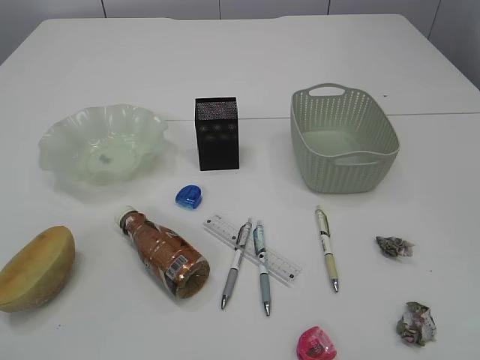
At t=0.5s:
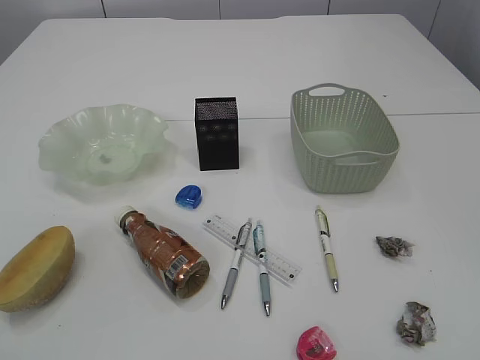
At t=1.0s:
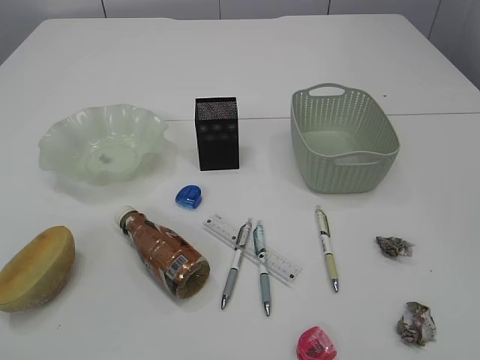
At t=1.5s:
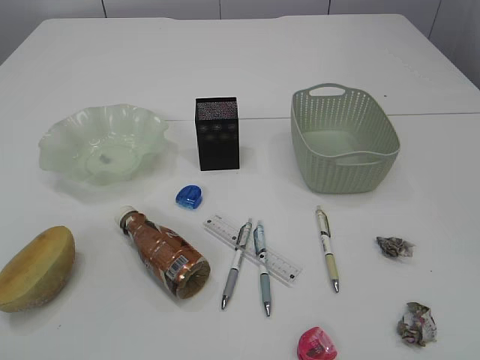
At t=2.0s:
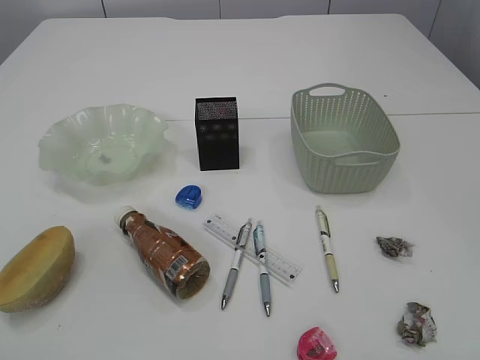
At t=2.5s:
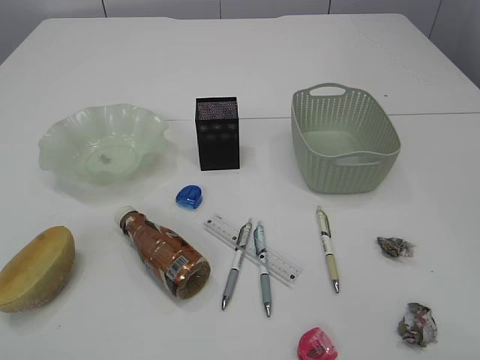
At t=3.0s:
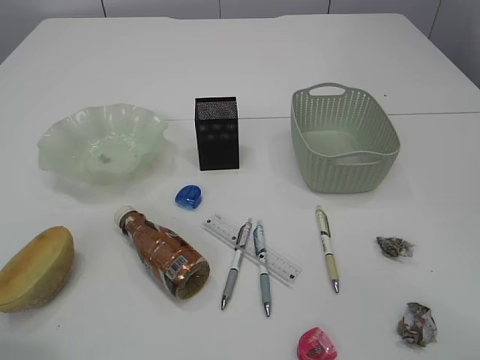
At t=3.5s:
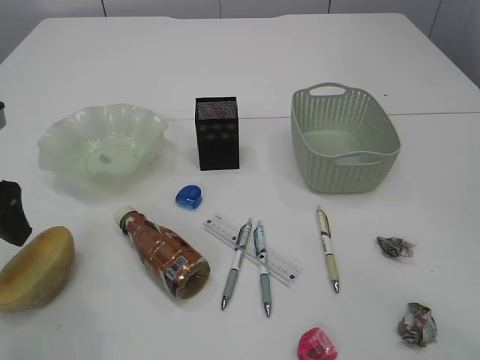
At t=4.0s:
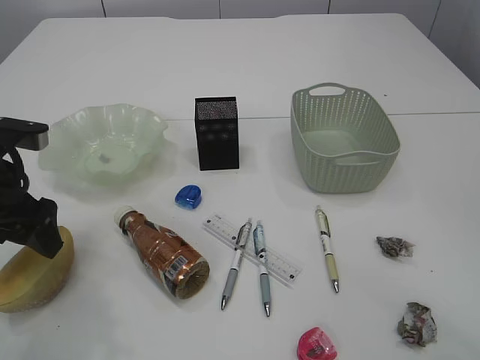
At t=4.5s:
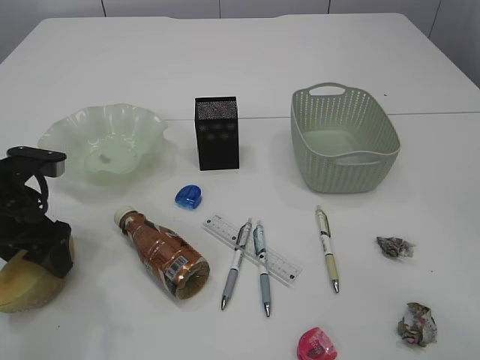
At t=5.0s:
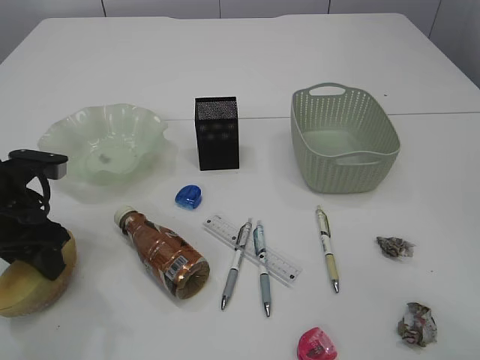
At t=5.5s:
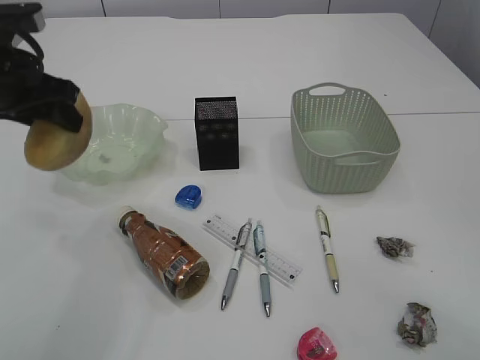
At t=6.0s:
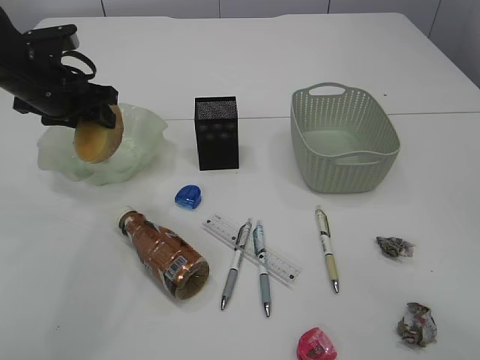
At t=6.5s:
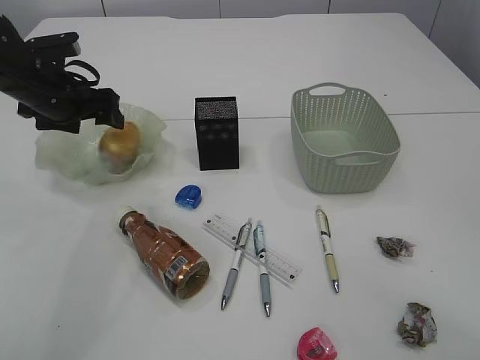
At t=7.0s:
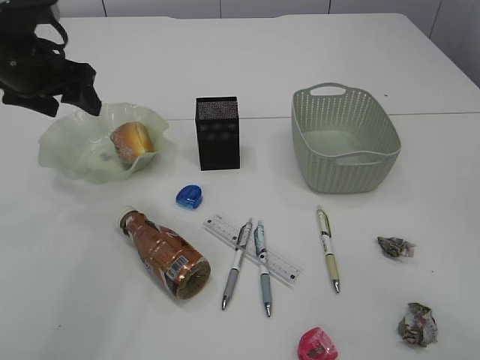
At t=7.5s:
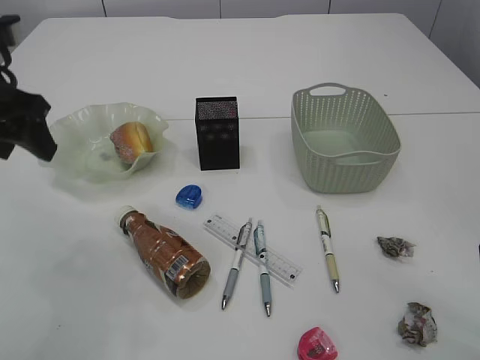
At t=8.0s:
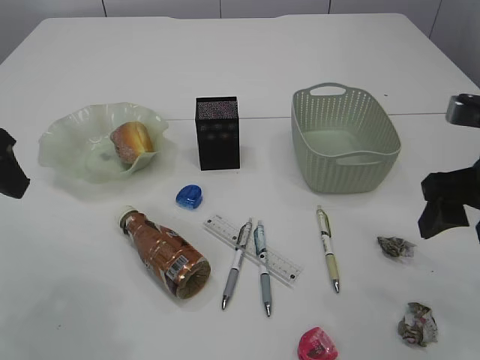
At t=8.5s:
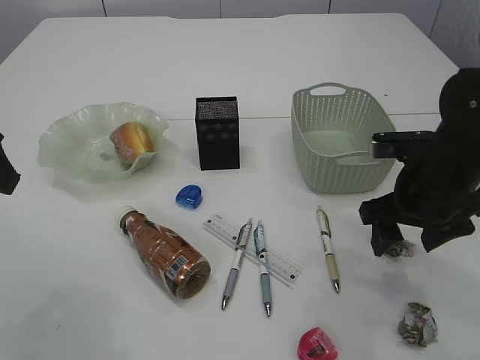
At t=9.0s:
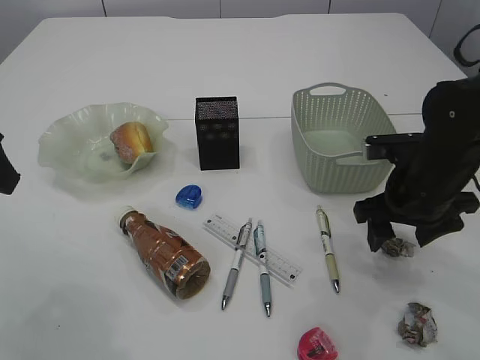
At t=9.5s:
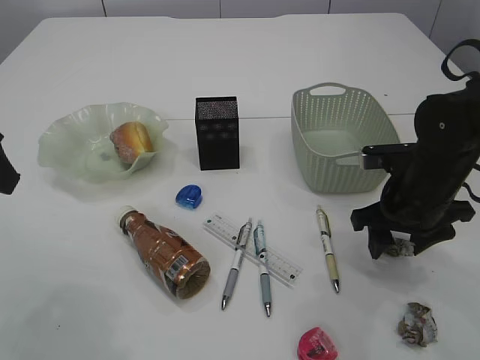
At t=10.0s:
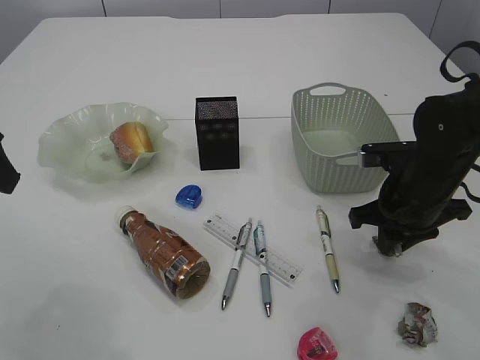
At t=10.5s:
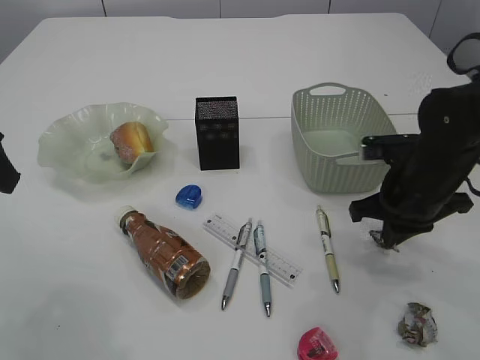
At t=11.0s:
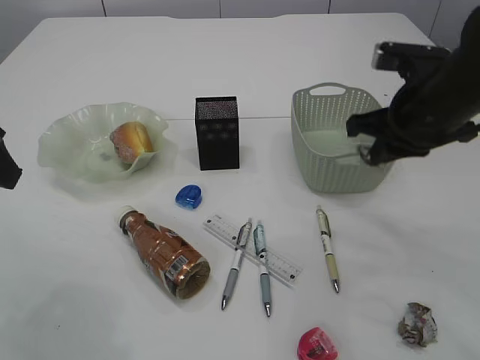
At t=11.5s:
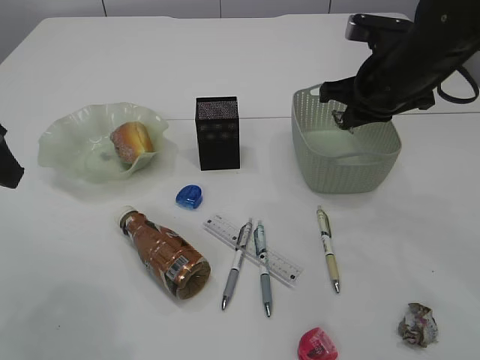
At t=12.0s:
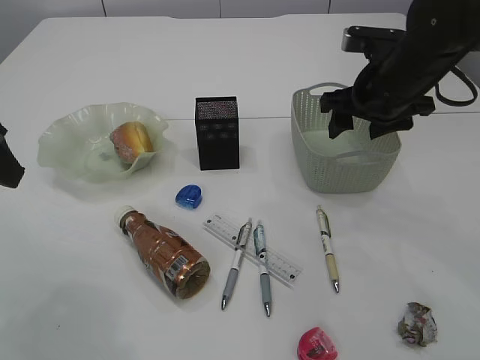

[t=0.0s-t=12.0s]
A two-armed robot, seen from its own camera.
Step, t=5.5s to t=7.5s: place the bread in the plate.
Step, t=8.0s to t=10.5s: Pick up the waste paper.
t=2.0s to t=4.0s: The left gripper heads forward, covering about 30 cm, and opens up.
t=4.0s to t=6.0s: The left gripper moves forward, roughly 15 cm, and closes up.
t=6.0s to t=8.0s: The left gripper shifts roughly 15 cm backward and upward, and opens and closes again. Meanwhile the right gripper shifts roughly 15 cm forward.
t=8.0s to t=10.0s: The right gripper travels downward and forward by about 15 cm, and closes.
t=10.0s to t=12.0s: The right gripper is displaced upward and forward by roughly 10 cm, and opens.

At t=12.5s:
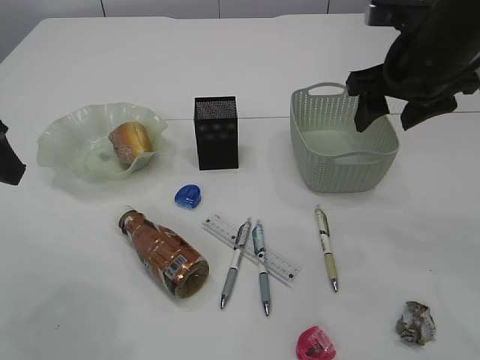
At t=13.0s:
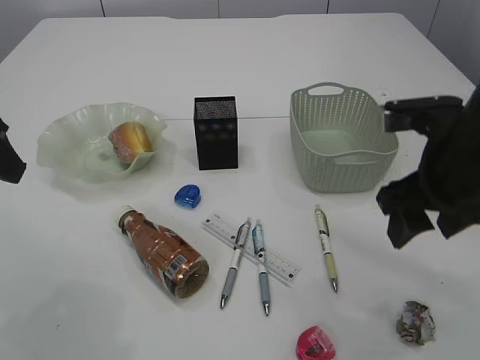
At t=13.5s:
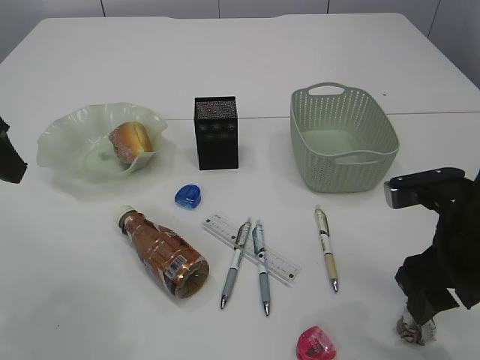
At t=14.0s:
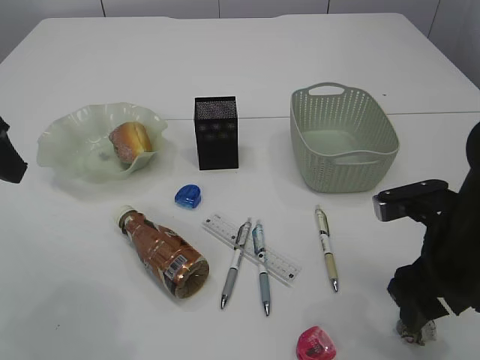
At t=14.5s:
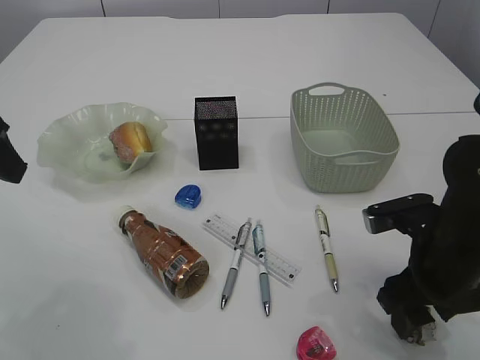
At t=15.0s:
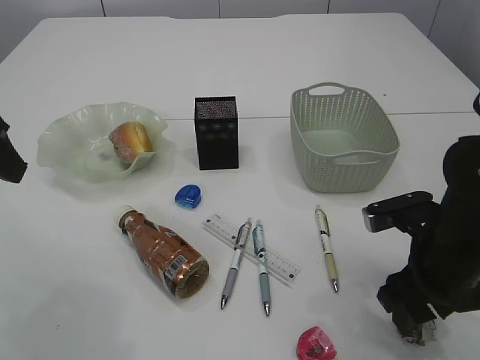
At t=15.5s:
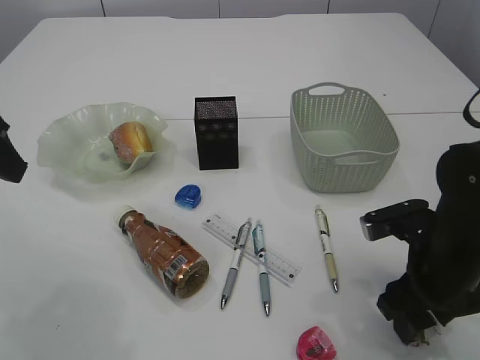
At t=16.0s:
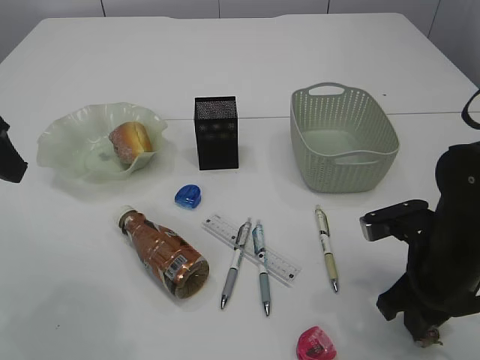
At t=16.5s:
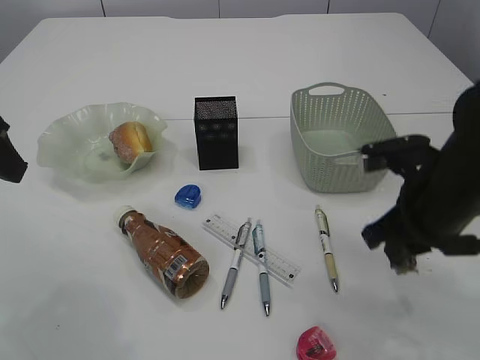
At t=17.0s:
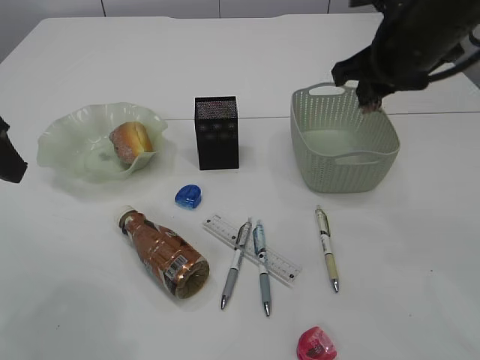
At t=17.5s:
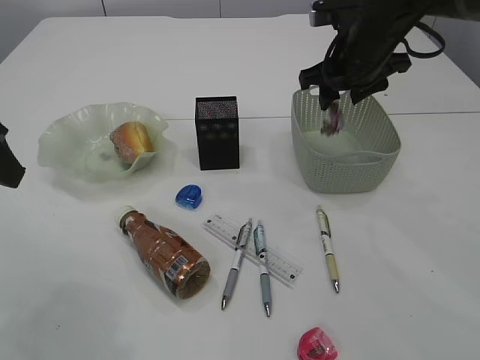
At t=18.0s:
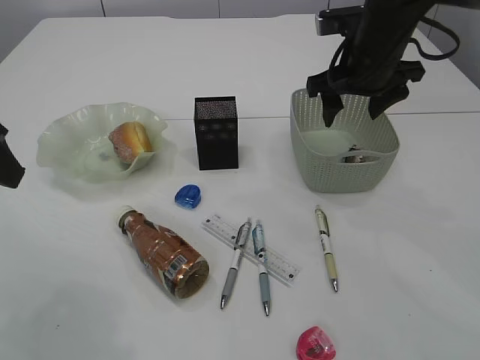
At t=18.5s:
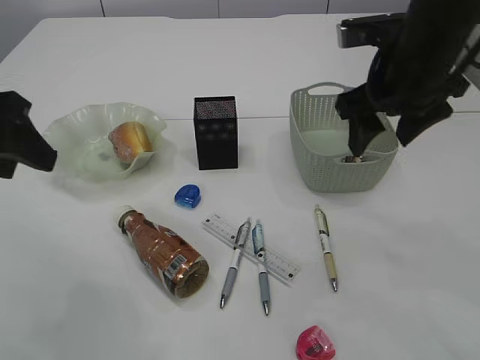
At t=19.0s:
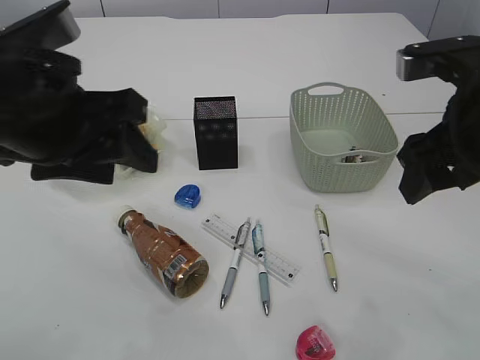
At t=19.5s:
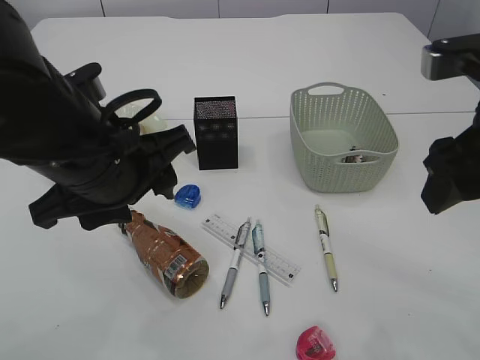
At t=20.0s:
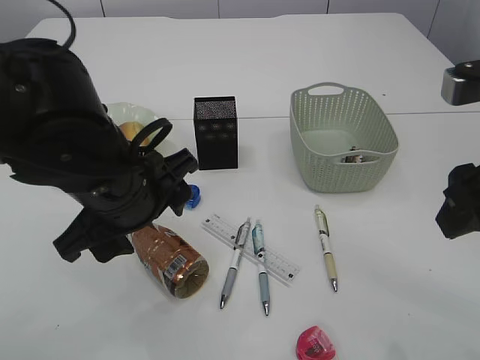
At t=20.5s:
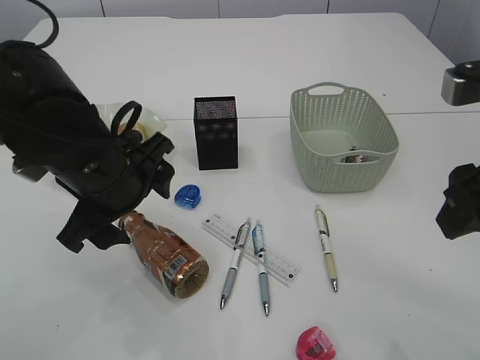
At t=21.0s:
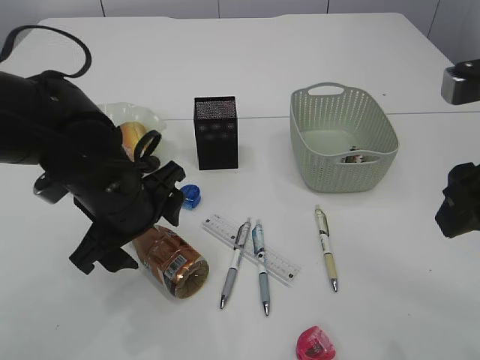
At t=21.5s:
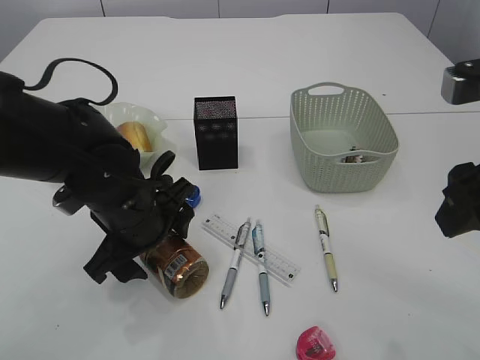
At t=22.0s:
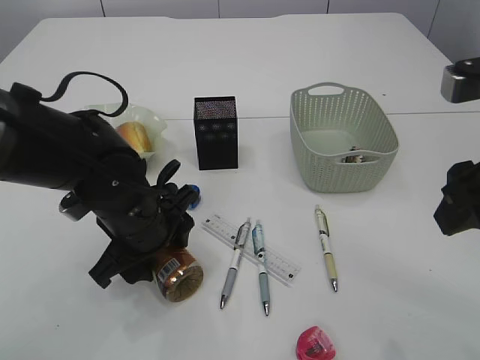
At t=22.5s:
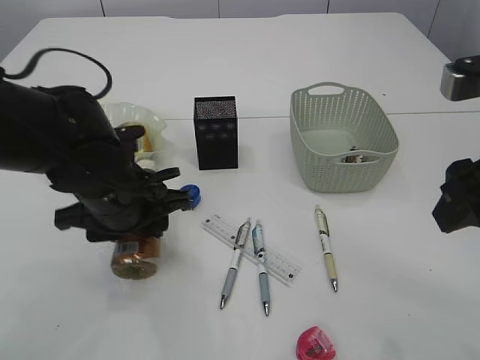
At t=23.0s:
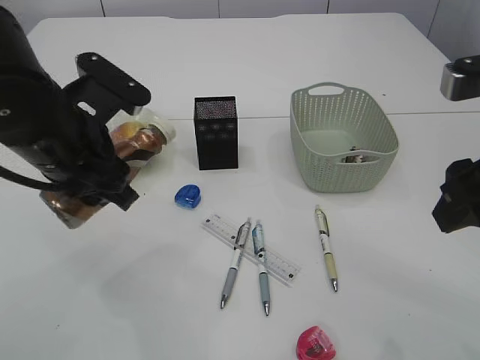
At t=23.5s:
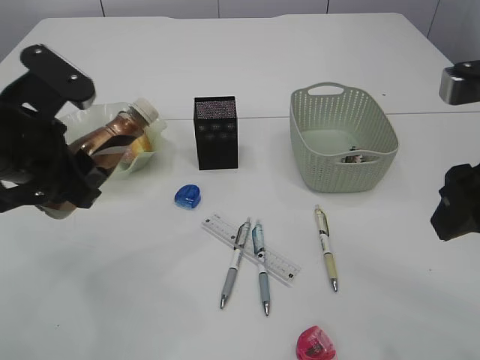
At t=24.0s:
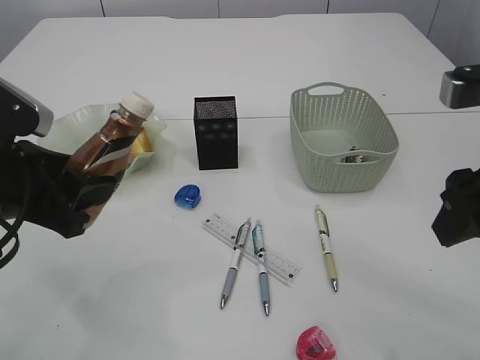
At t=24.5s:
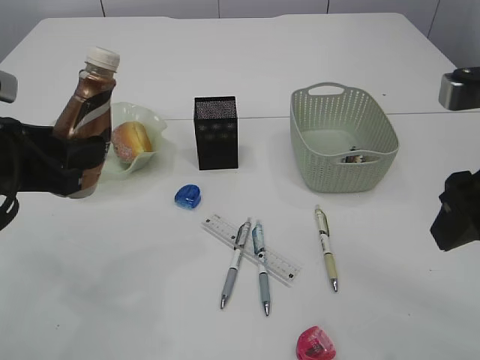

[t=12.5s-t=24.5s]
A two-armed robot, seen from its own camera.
Step, t=12.5s to t=16.5s: Pick up the waste paper.
Step, t=17.0s to t=18.0s: Place the waste paper in the basket.
Step, t=18.5s to t=22.5s: Pick up the bottle with the left arm.
t=12.5s to t=14.5s: The right gripper goes approximately 20 cm downward and backward.
t=14.5s to t=16.5s: The right gripper closes up.
t=16.5s to t=18.5s: The right gripper goes about 15 cm upward and forward, and opens up.
t=18.5s to t=20.5s: The left gripper goes about 15 cm to the right and downward, and opens its fingers. Meanwhile the right gripper heads backward, covering some 15 cm.
t=20.5s to t=22.5s: The left gripper closes.
t=22.5s to t=24.5s: The left gripper is displaced to the left and upward by roughly 15 cm.

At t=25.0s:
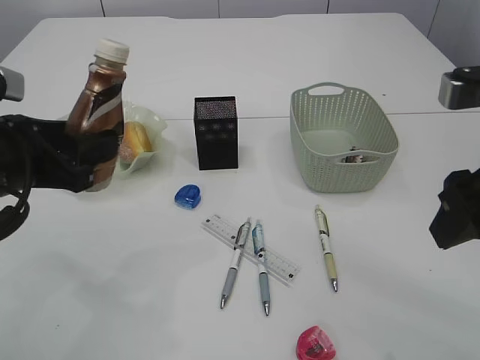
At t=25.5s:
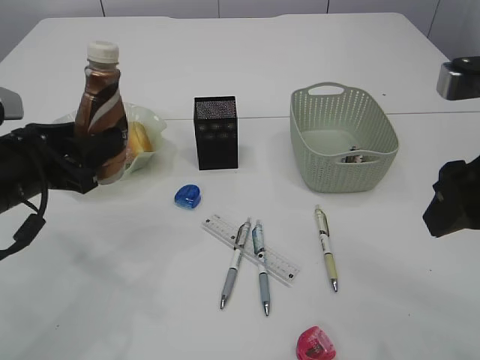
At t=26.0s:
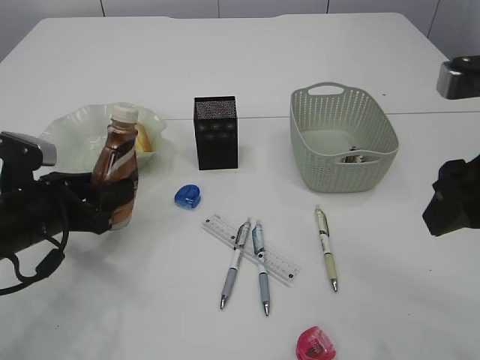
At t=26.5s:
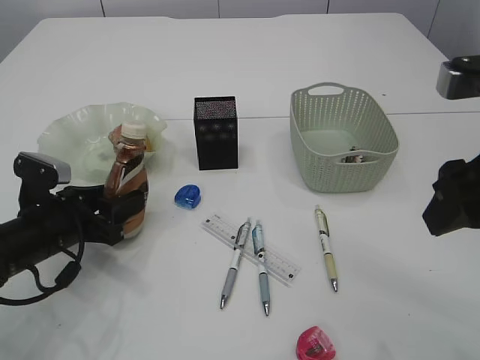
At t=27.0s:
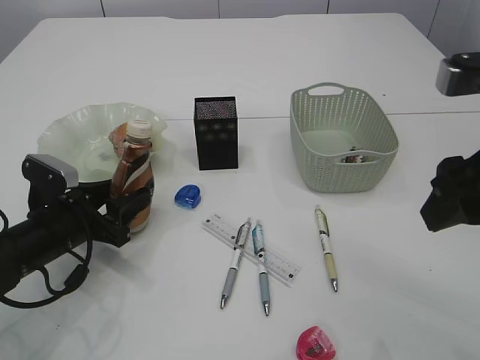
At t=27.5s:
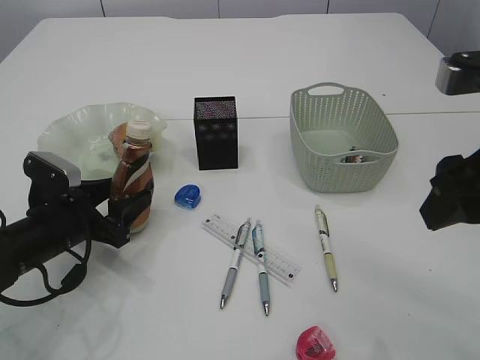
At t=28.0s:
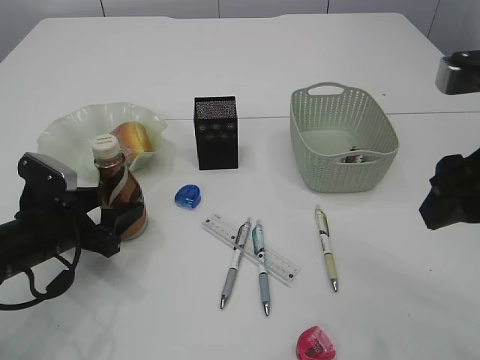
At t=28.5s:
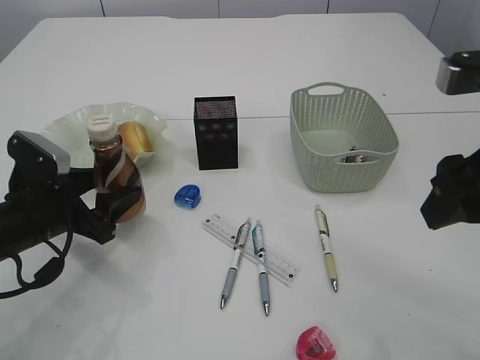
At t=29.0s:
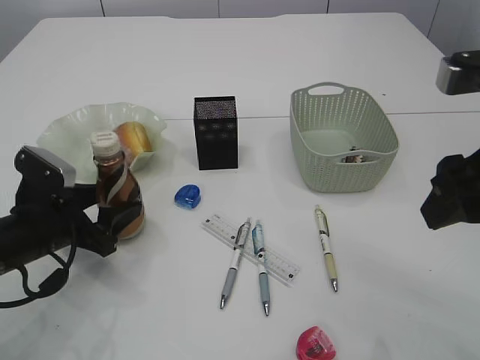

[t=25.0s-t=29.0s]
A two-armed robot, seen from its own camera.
t=25.0s to t=27.0s: The left gripper travels downward by approximately 15 cm.
t=27.0s to t=29.0s: The grippers make only small movements.
